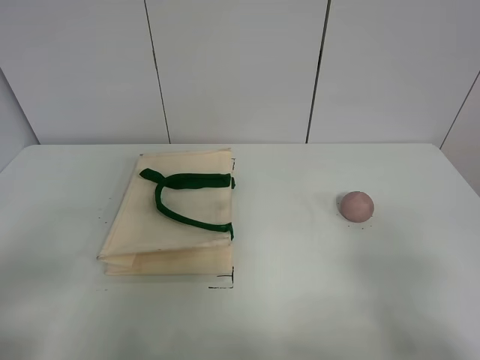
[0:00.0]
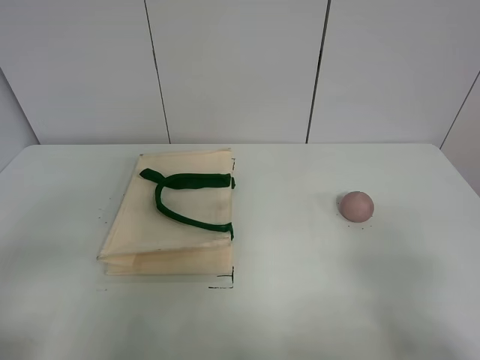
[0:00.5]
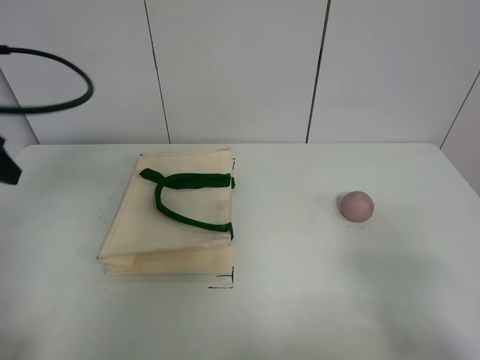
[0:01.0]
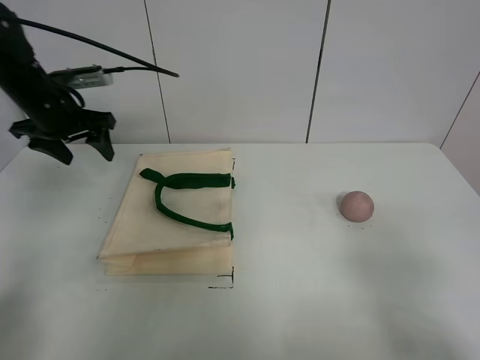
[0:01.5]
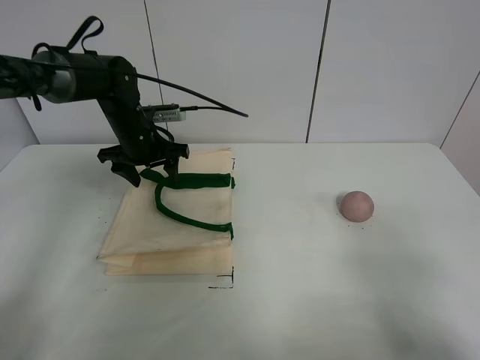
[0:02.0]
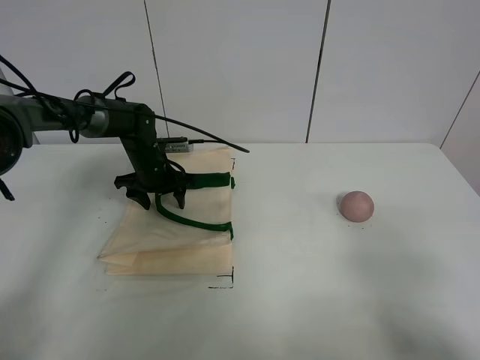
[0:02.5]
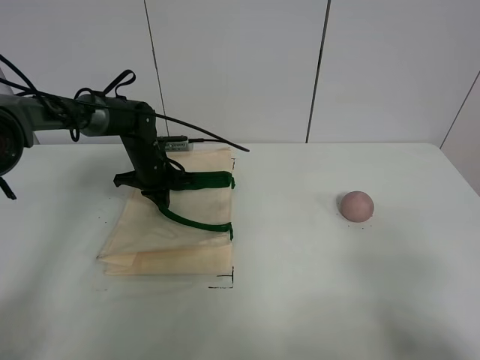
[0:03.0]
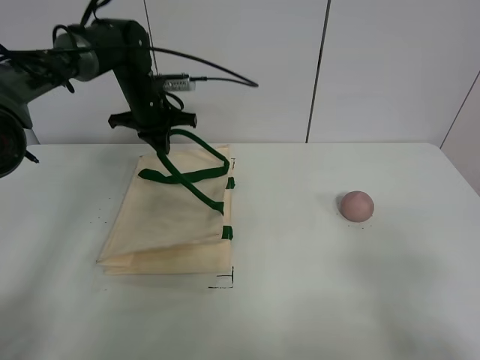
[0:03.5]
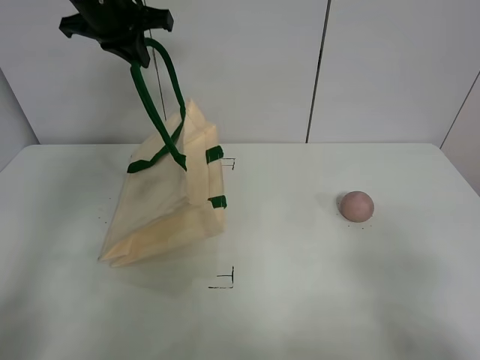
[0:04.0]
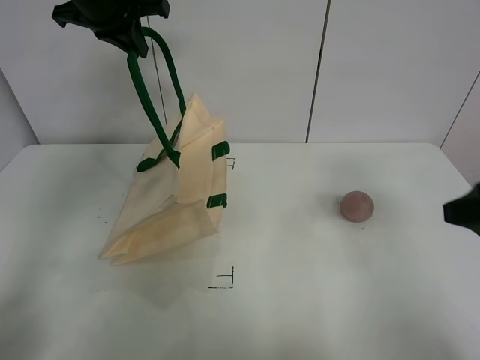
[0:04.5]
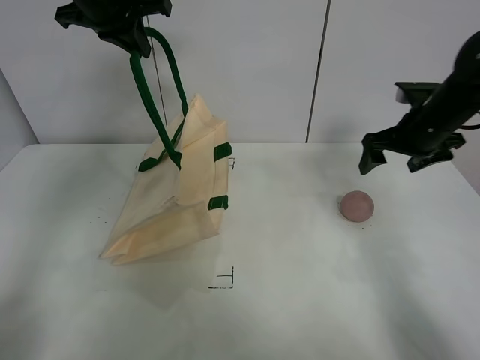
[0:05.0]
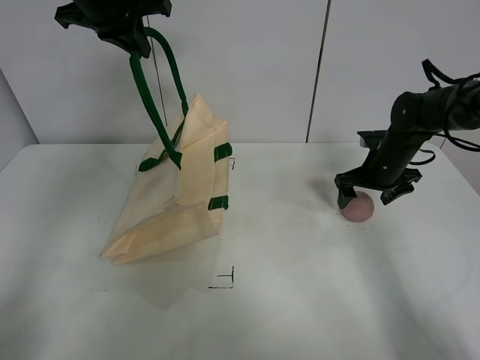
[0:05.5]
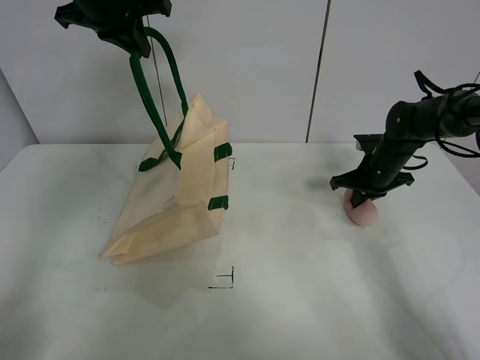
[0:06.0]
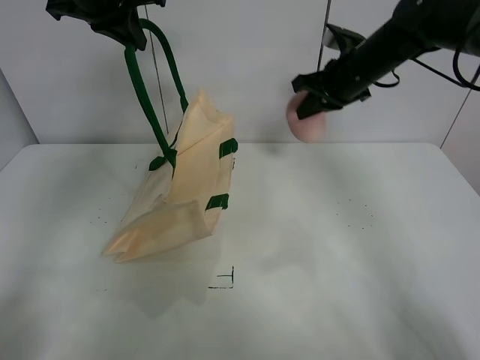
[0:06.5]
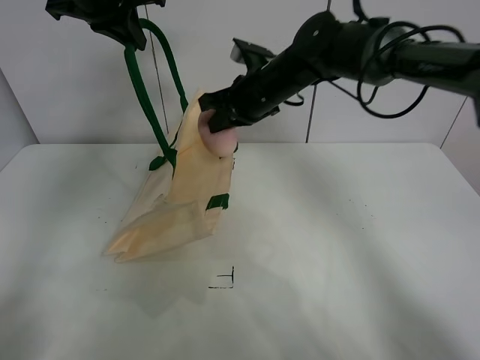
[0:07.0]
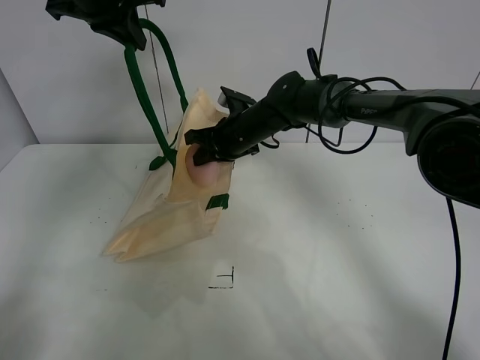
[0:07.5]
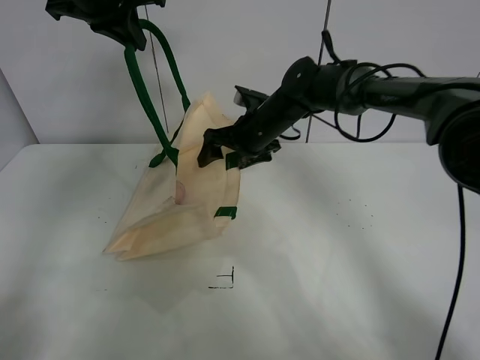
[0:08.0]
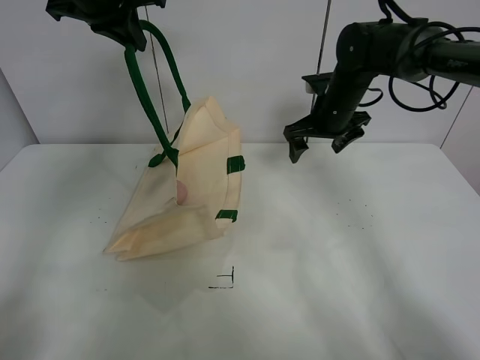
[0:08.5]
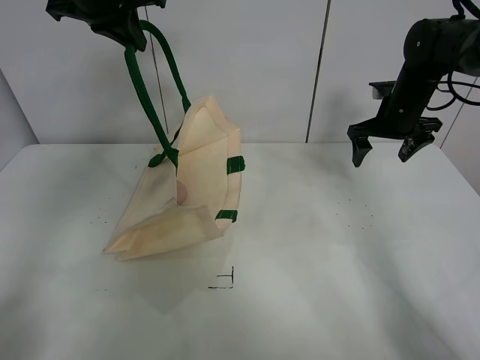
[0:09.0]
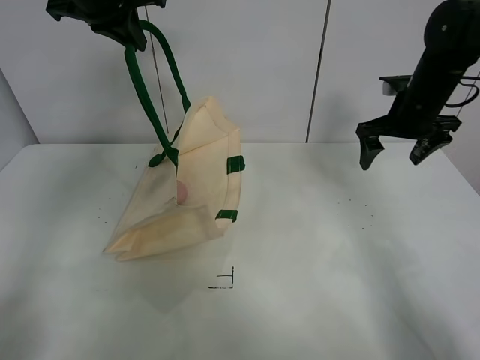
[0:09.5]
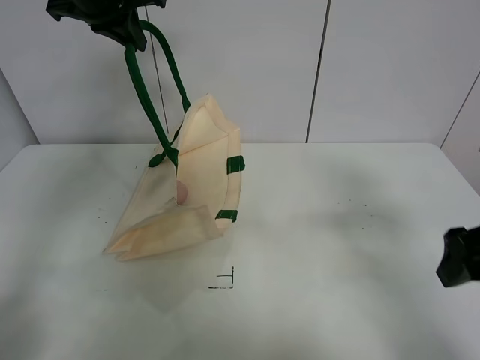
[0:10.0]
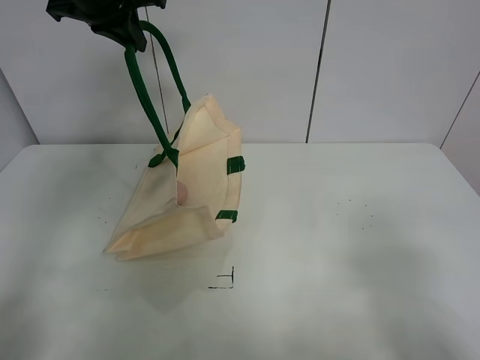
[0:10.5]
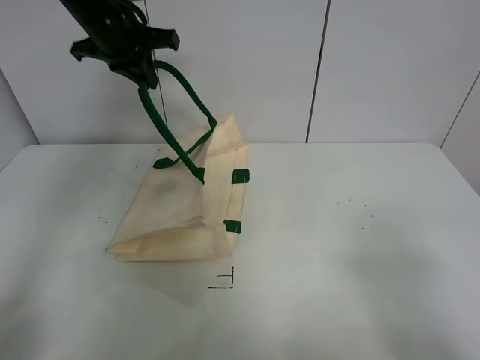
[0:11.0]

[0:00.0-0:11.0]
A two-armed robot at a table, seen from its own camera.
Task of the whole recording: open the white linen bag and put the peach in the bag.
Step, 0:00.0 to 0:03.5: Lift the handbag with left gripper.
Step, 0:04.0 to 0:06.0: Grasp the peach with right gripper.
Step, 0:06.5 to 0:08.0: Place the peach in the handbag with right gripper.
0:02.0 to 0:03.5: The left gripper reaches roughly 10 cm downward, then returns, and closes up.
0:03.5 to 0:05.5: The right gripper goes about 40 cm forward; the left gripper shifts about 20 cm upward.
0:05.5 to 0:07.5: The right gripper heads to the left, covering approximately 25 cm, and closes up.
0:07.5 to 0:09.0: The right gripper travels to the right by about 25 cm, and opens its fingers.
0:09.0 to 0:11.0: The right gripper is displaced backward by about 50 cm.

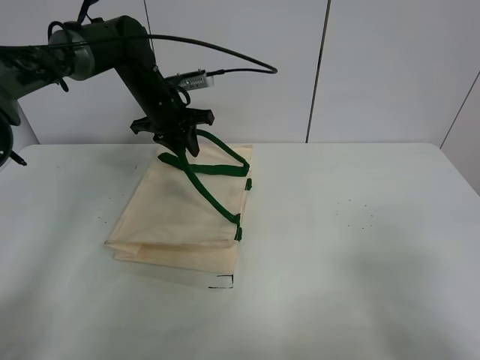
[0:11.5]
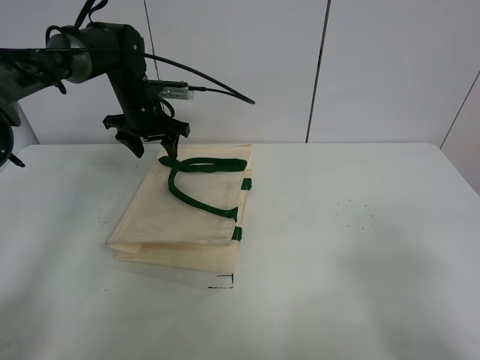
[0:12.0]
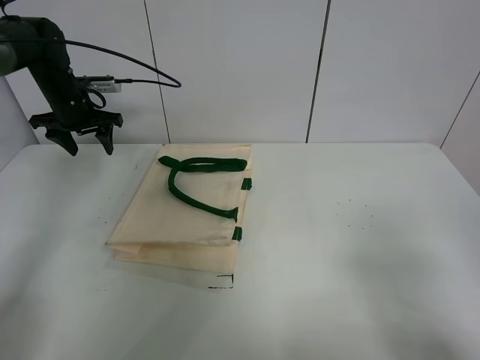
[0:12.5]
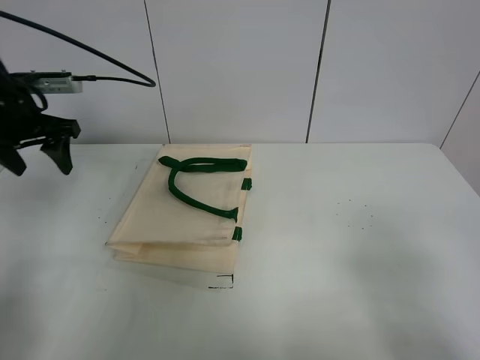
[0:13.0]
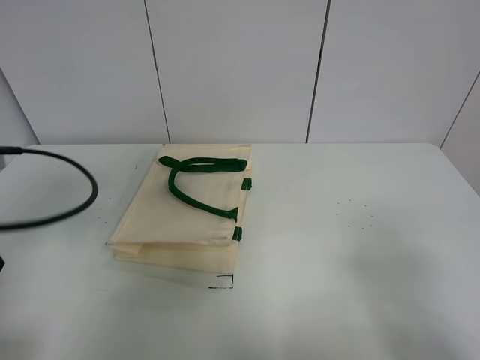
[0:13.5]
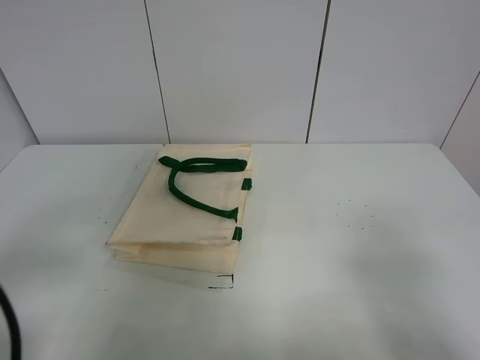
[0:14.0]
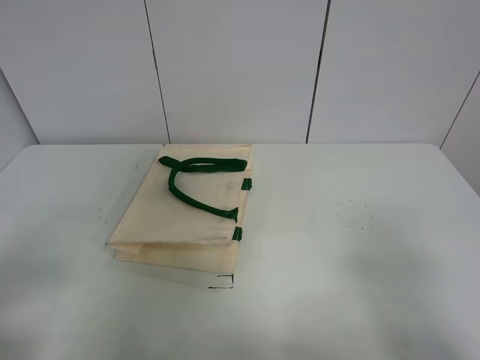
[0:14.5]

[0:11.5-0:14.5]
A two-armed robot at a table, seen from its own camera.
Task of the whole recording: open the white linen bag and put the peach in the bag.
0:11.5 to 0:13.0: The left gripper heads to the left and backward, covering approximately 20 cm, and opens up.
0:13.0 to 0:14.5: The left gripper heads backward, covering approximately 40 cm.
